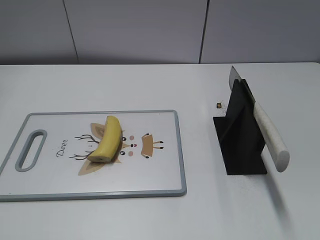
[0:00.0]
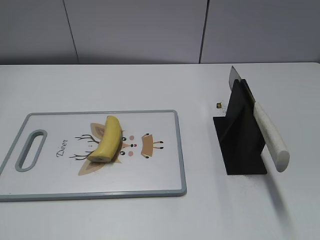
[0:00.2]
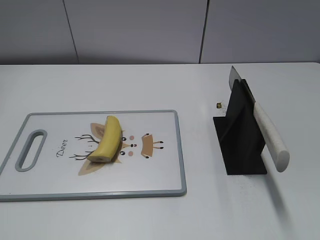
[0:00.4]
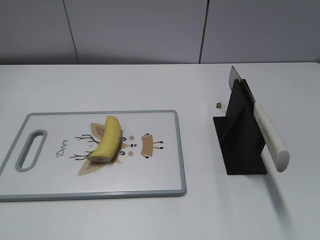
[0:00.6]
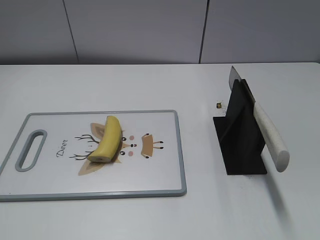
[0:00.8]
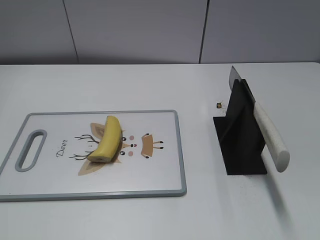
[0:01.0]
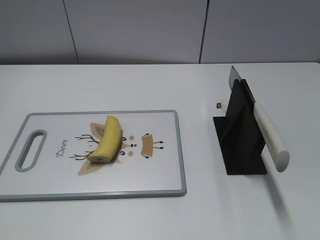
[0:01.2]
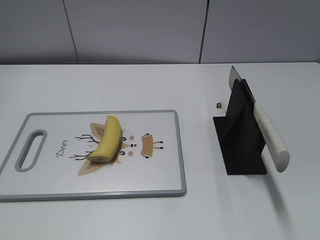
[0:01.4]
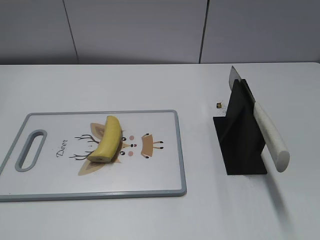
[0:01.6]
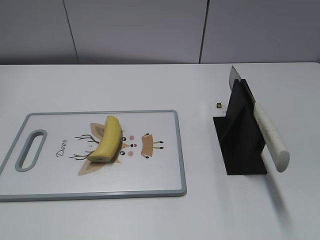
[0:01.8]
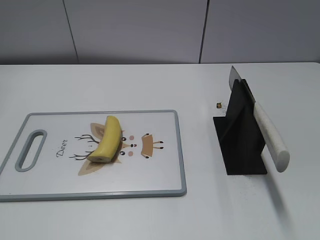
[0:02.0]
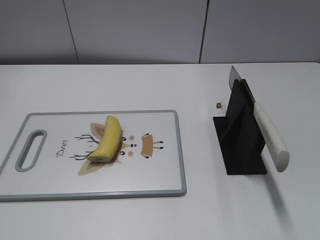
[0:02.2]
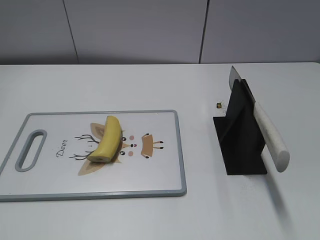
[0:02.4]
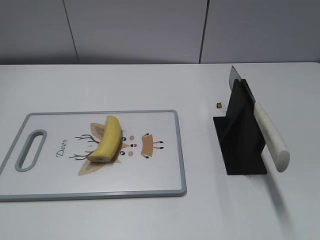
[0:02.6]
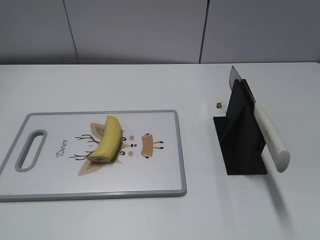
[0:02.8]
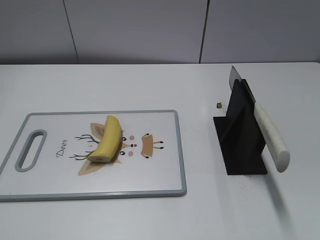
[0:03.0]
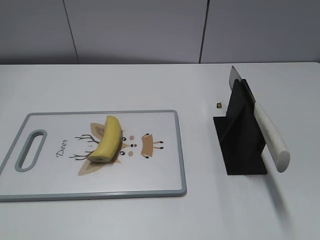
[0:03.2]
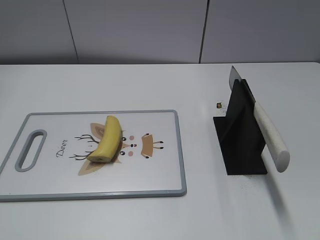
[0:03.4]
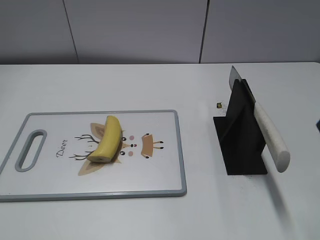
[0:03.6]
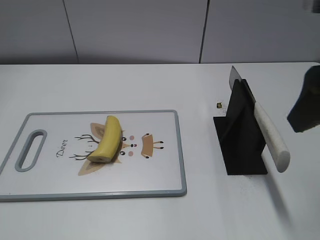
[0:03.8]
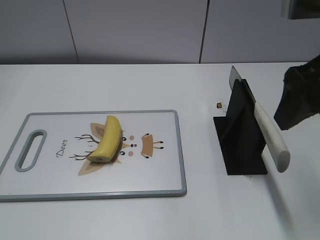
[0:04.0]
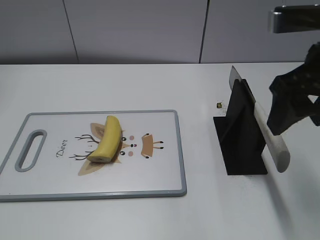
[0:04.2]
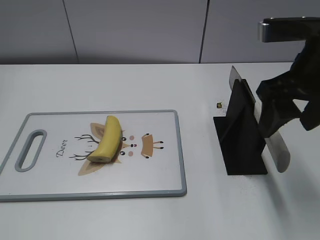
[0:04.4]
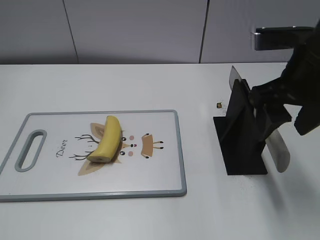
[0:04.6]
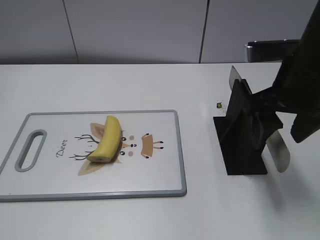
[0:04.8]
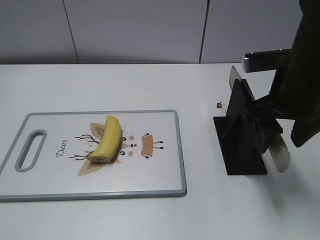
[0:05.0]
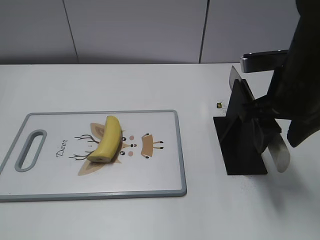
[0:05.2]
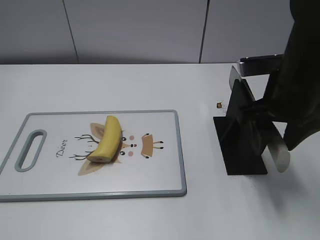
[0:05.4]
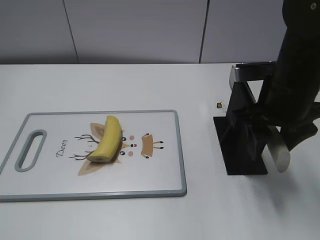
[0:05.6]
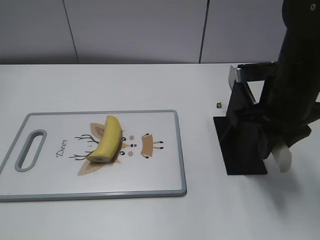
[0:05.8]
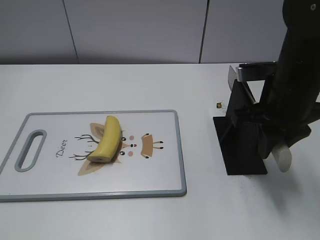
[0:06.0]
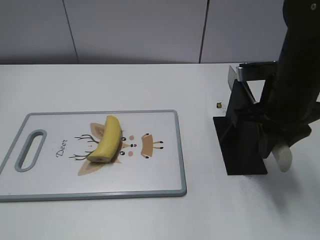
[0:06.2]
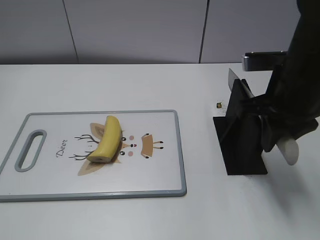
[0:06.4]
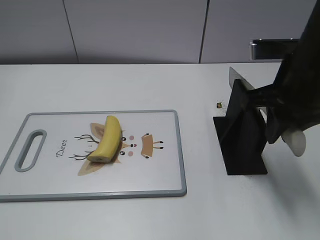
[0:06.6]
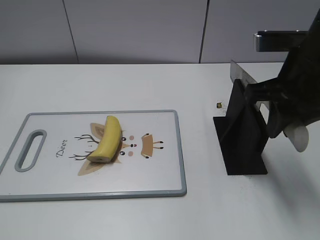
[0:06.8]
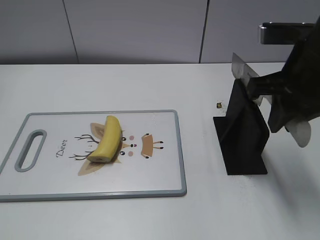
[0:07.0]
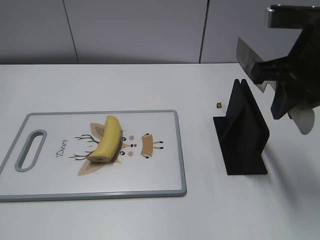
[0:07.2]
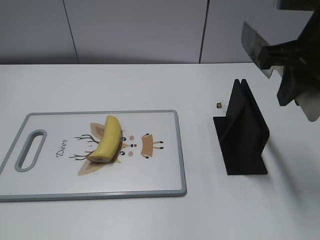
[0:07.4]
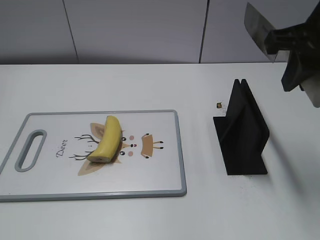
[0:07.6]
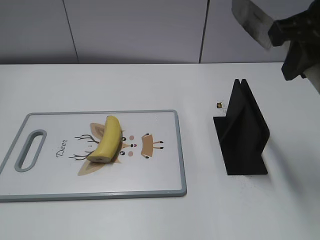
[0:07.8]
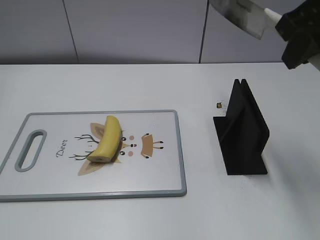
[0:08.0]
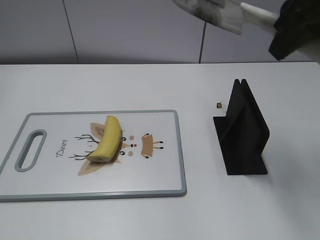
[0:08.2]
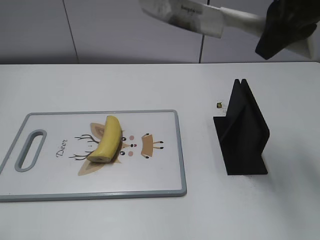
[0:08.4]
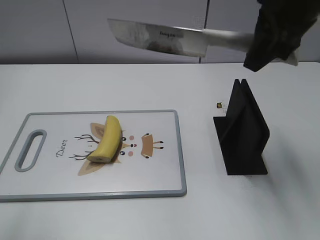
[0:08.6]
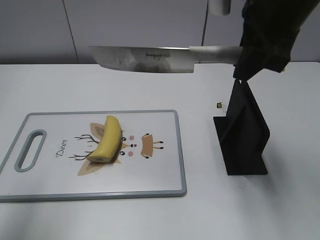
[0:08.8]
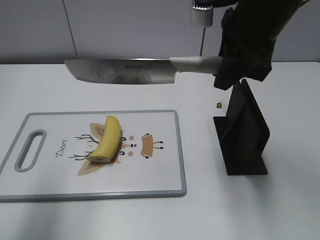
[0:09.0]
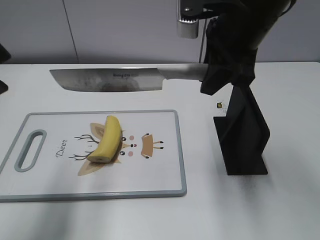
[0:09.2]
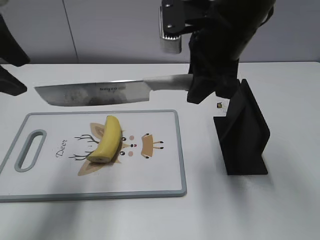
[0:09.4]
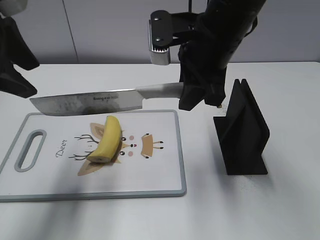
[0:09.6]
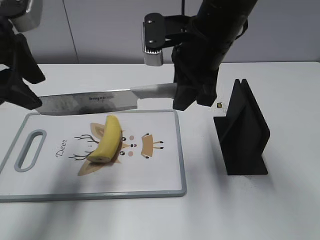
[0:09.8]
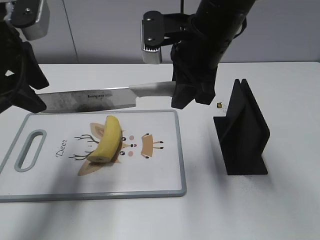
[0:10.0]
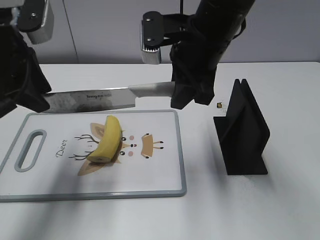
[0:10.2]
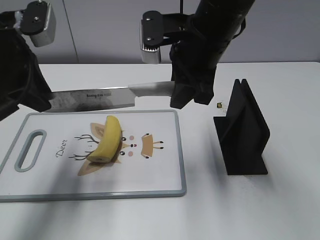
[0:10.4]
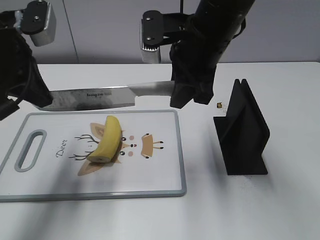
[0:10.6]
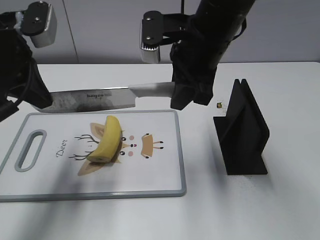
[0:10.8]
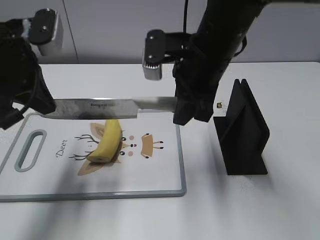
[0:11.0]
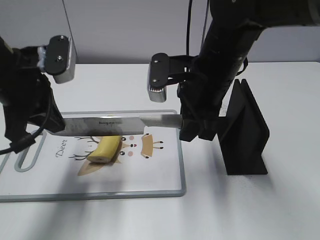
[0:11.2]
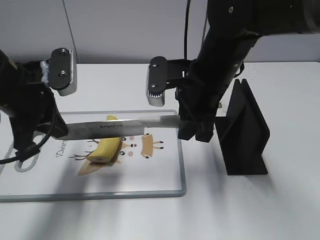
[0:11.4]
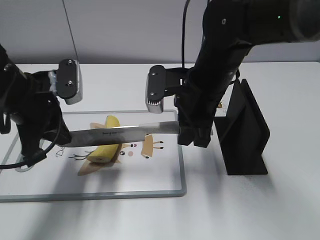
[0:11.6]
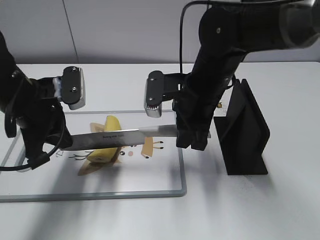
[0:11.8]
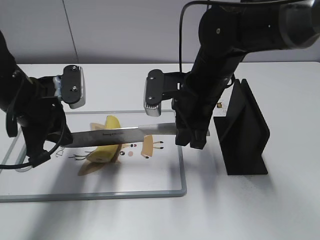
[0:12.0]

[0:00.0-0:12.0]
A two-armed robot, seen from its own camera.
Task of the whole recording: cut banana.
Step, 0:00.0 to 0:07.4: Grab the knife handle with your right hand.
0:03.0 to 0:04.4: The right gripper goes roughly 20 cm forward and to the left.
0:04.4 to 0:06.0: The right gripper travels downward by about 5 cm, and closes its fingers.
0:06.0 to 0:07.6: The right gripper moves upward, some 10 cm.
0:07.6 to 0:09.0: The left gripper travels forward and upward by approximately 25 cm; the right gripper travels to the left by some 5 cm.
0:09.0 to 0:10.4: The right gripper heads to the left and downward, covering about 10 cm. The left gripper goes roughly 15 cm downward and forward, and closes.
0:10.4 to 0:12.0: The grippers both shift downward by some 10 cm. The left gripper closes its fingers.

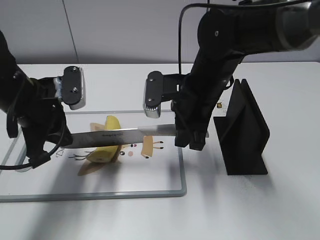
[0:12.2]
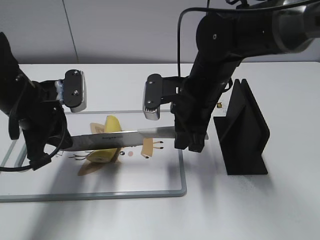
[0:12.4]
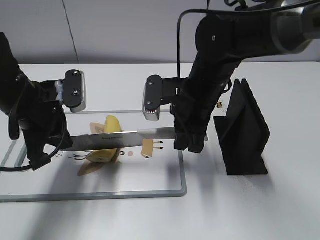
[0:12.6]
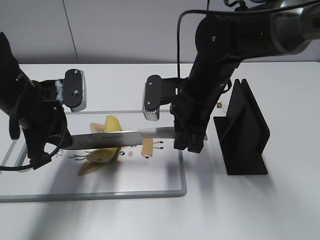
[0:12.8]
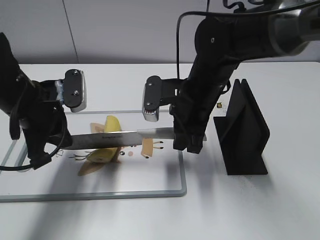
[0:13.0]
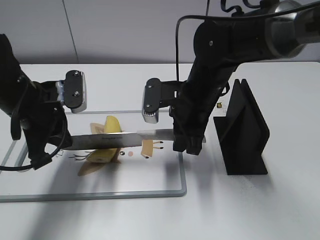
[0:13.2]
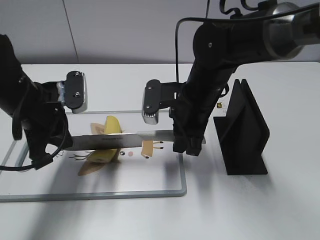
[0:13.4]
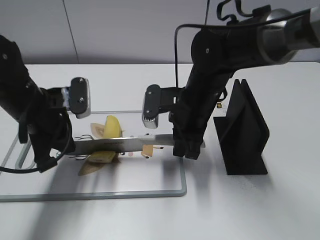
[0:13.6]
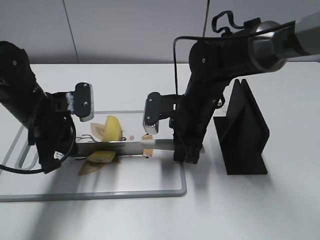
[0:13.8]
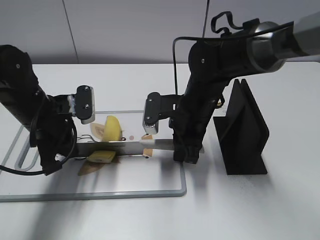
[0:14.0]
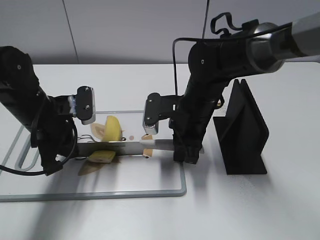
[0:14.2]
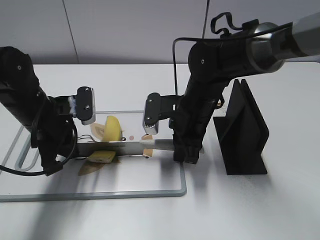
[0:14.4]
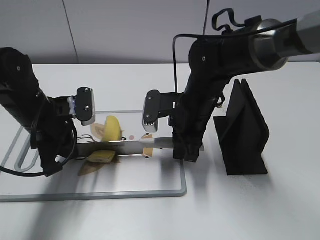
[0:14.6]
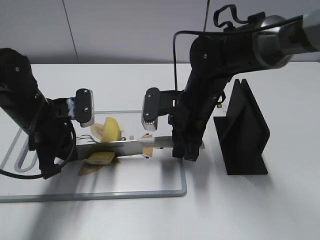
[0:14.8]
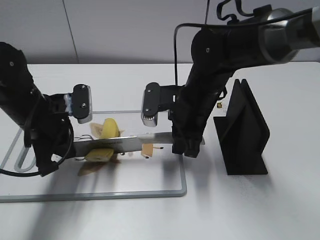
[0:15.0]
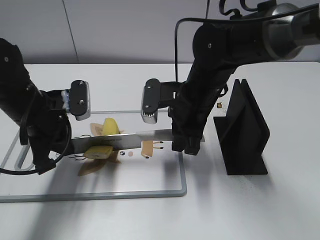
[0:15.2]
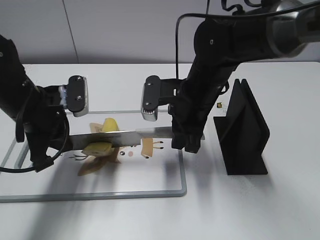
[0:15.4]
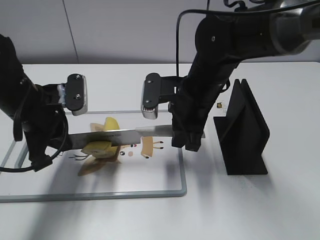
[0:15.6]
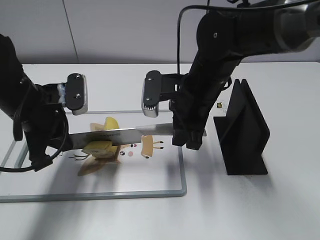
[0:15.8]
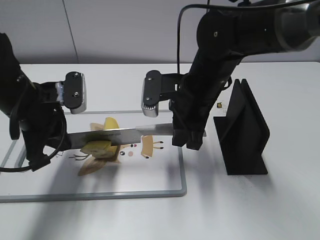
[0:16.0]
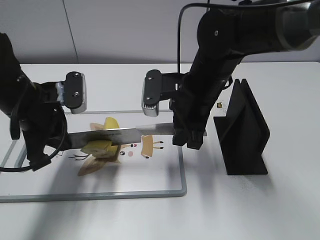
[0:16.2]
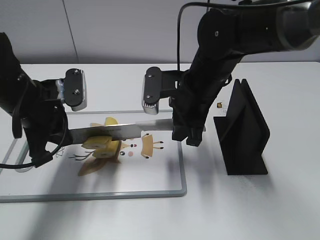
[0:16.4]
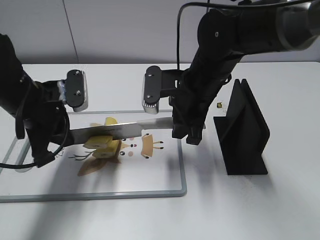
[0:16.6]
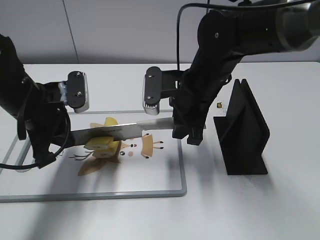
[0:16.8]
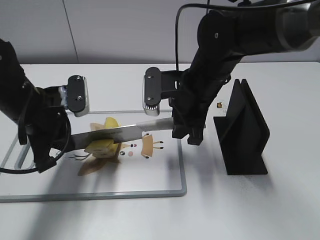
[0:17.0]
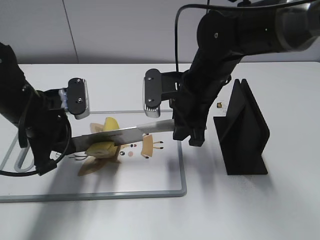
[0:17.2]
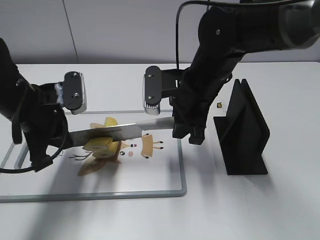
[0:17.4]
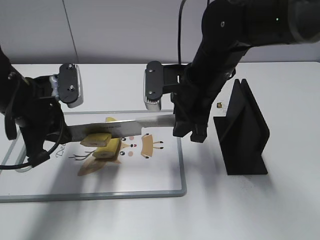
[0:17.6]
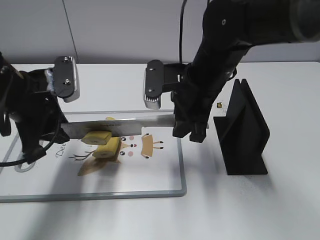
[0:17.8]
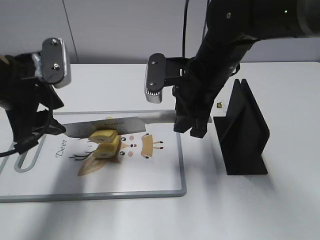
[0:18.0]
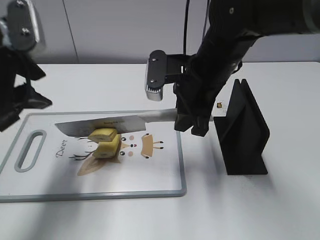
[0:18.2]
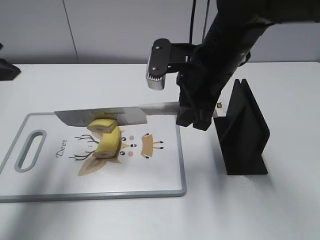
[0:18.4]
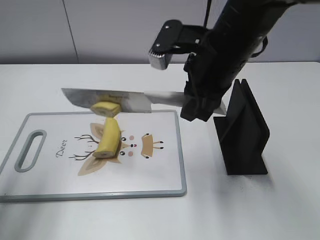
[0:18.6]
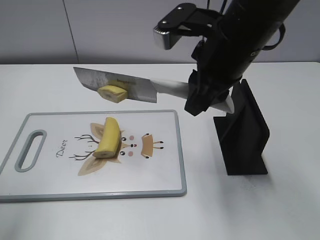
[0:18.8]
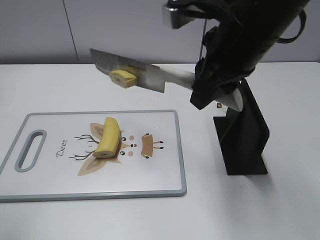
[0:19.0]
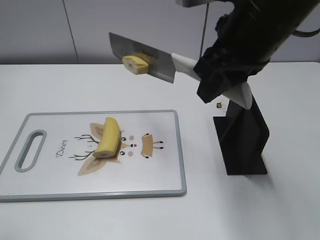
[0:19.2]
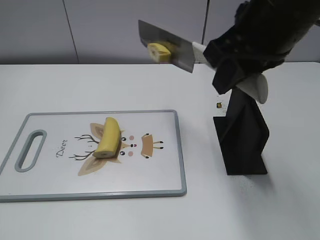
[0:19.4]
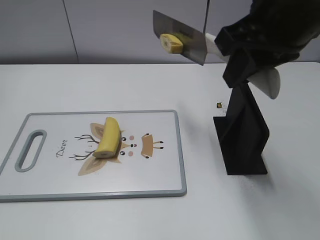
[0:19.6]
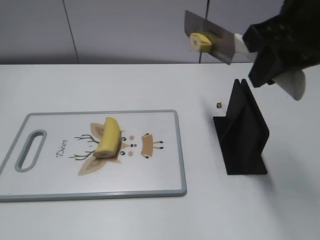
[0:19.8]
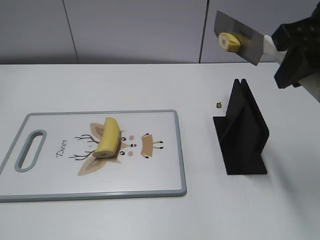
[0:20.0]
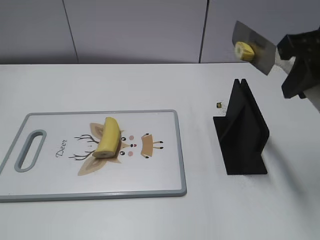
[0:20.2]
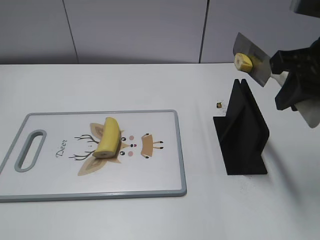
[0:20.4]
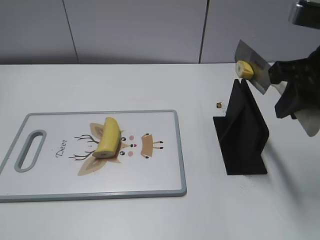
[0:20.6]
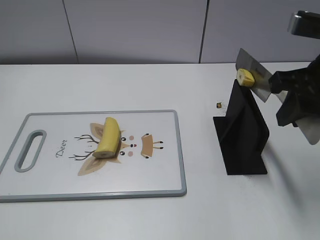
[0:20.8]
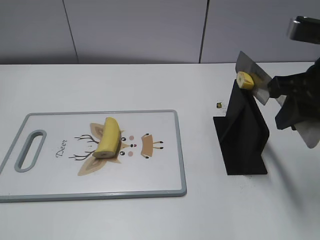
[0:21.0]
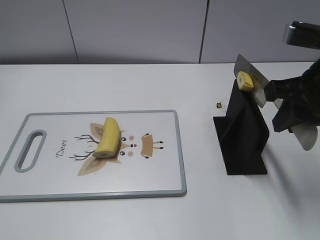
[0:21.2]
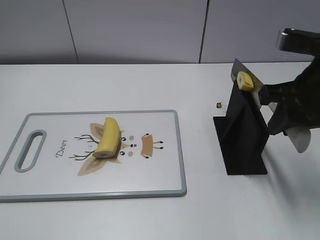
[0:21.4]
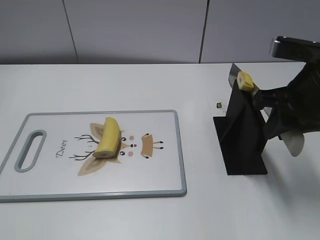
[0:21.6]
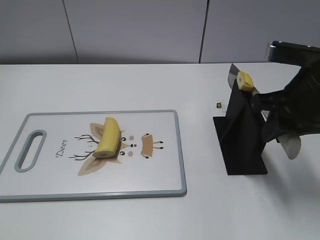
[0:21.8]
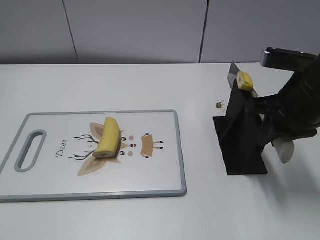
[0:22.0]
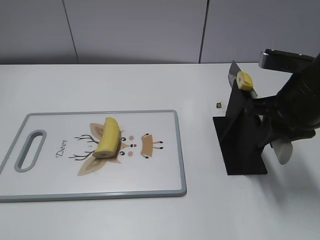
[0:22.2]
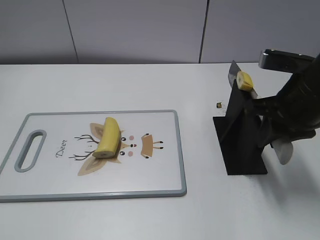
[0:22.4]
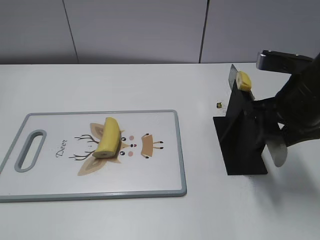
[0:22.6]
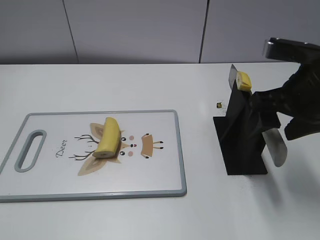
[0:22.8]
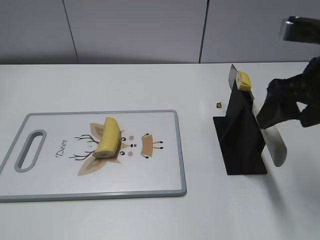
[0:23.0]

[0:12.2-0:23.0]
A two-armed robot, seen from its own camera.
Task of the whole recording: cut banana.
Step, 0:13.6 to 0:17.6: Cut the banana with your right hand.
Step, 0:17.8 to 0:22.2: Lift the knife with your right hand.
0:12.2 to 0:13.8: The right gripper heads downward, covering some 5 cm.
0:13.8 to 0:16.8: The grippers make only small movements.
0:16.8 to 0:18.4: The left gripper travels upward by approximately 15 cm, and opens up. The right gripper shifts by roughly 5 cm.
0:18.4 to 0:20.0: The left gripper is displaced backward by roughly 25 cm, while the right gripper is displaced to the right, upward and backward by about 20 cm.
0:20.0 to 0:21.4: The right gripper travels downward by roughly 10 cm.
0:21.4 to 0:23.0: The right gripper opens.
